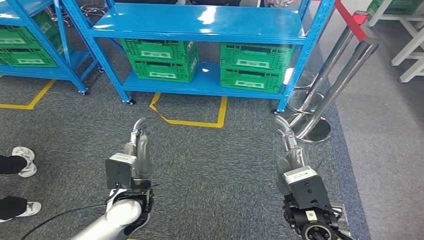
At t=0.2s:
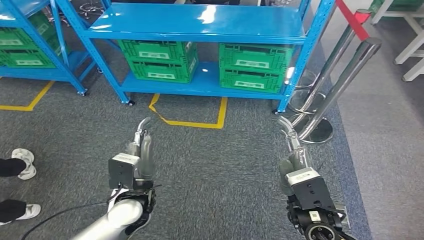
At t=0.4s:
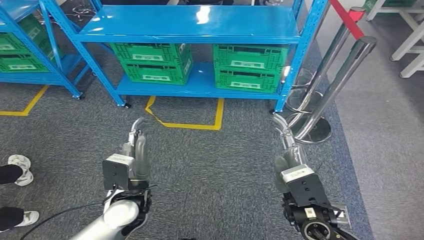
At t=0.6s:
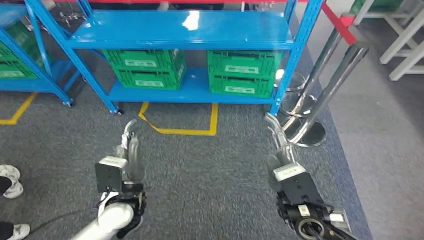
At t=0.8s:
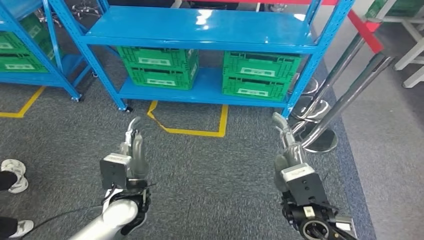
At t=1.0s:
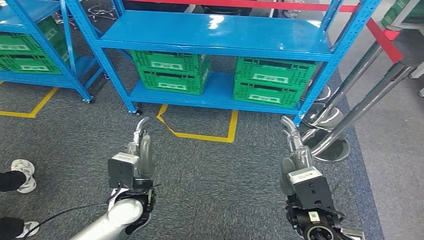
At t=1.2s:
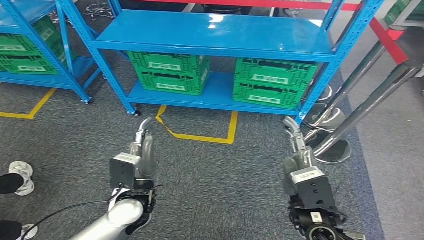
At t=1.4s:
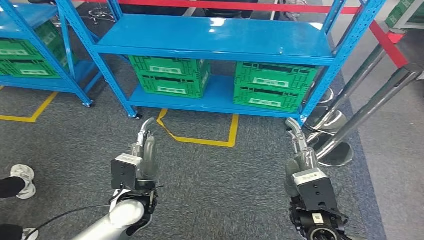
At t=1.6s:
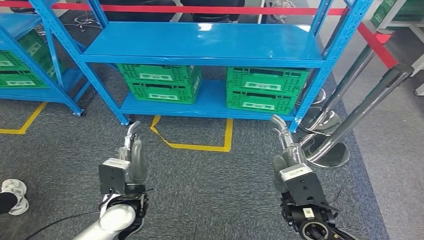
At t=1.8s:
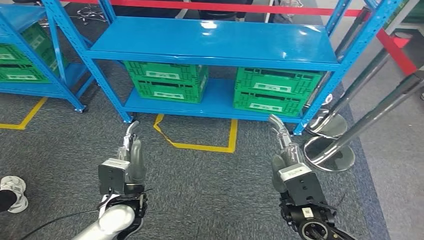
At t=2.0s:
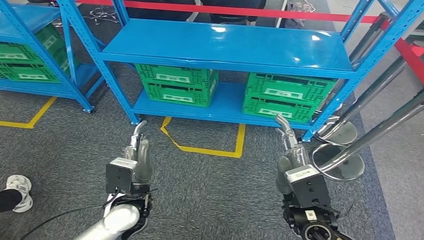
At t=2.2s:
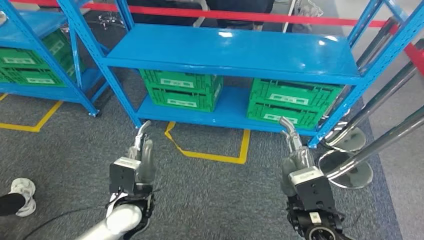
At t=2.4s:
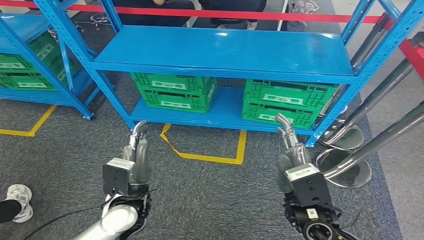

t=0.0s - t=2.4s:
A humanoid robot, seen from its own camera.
Step, t=0.0s - t=2.4s: Return to the initial position at the workbench.
